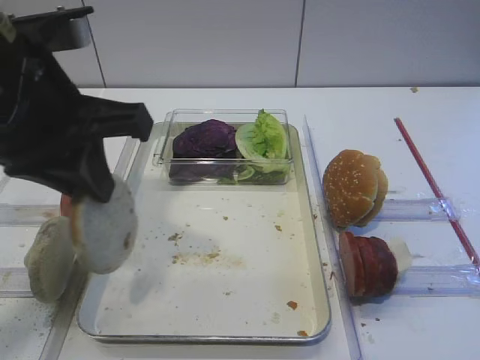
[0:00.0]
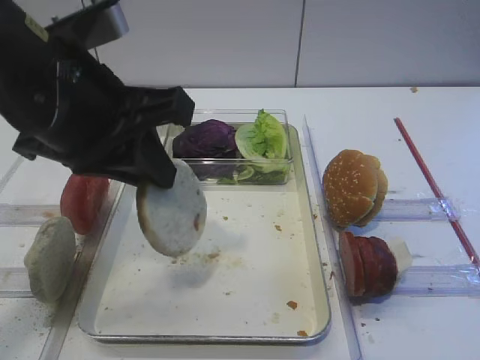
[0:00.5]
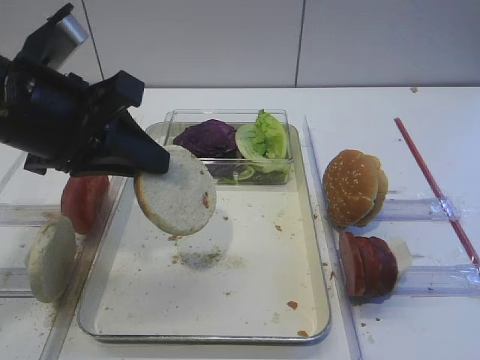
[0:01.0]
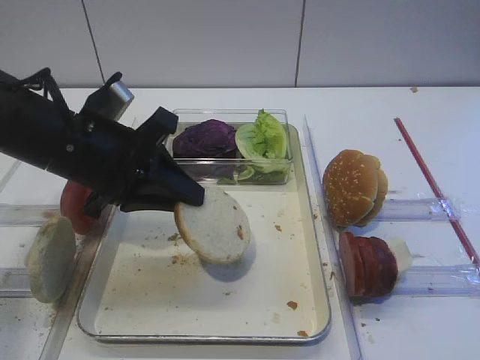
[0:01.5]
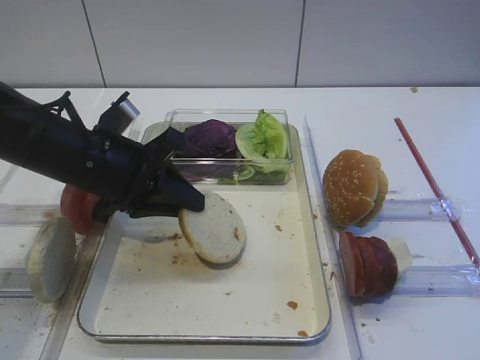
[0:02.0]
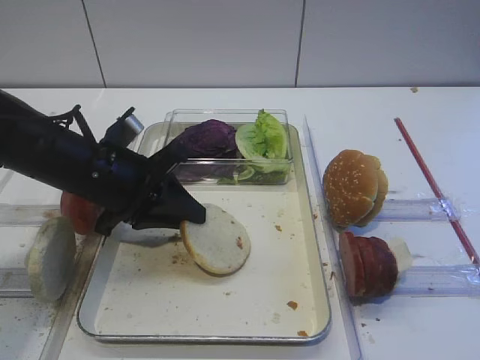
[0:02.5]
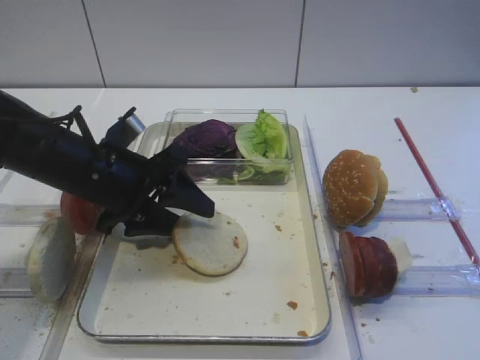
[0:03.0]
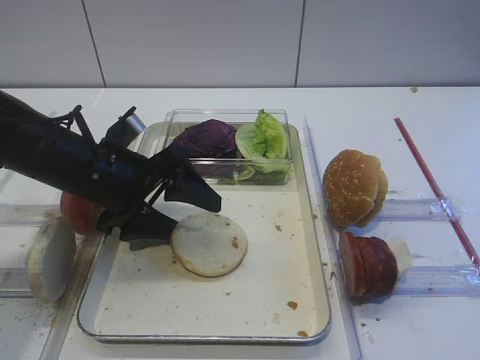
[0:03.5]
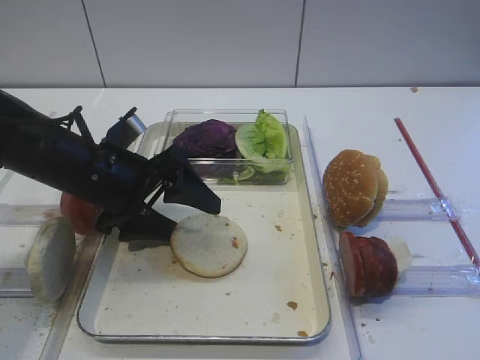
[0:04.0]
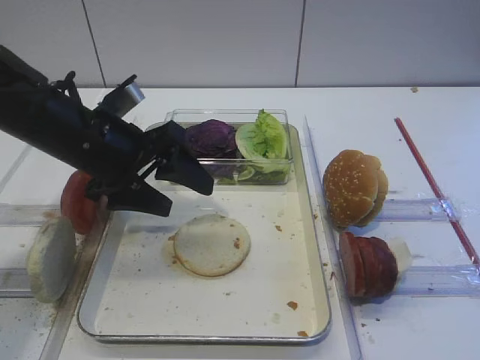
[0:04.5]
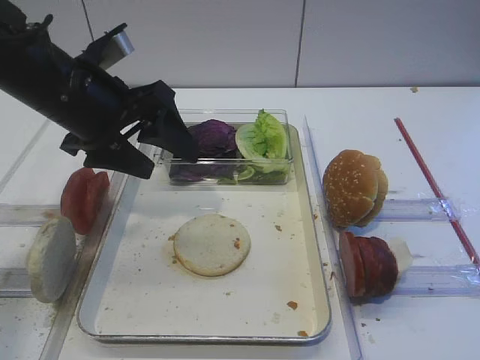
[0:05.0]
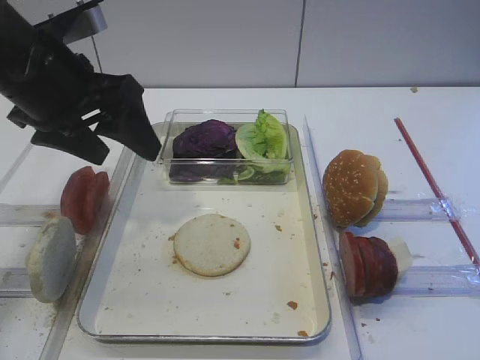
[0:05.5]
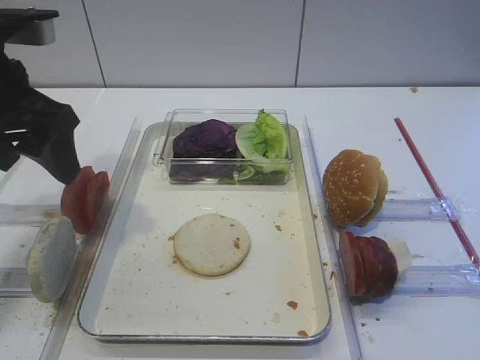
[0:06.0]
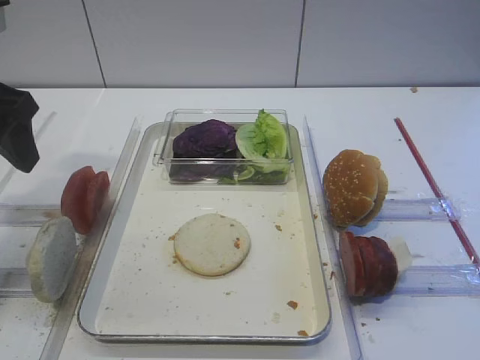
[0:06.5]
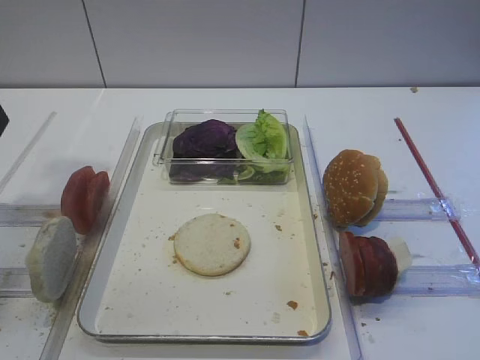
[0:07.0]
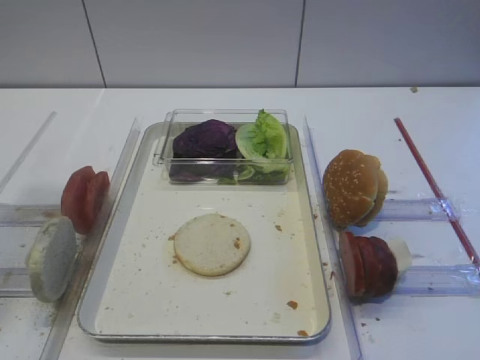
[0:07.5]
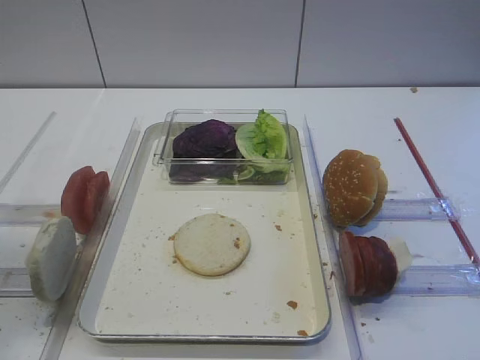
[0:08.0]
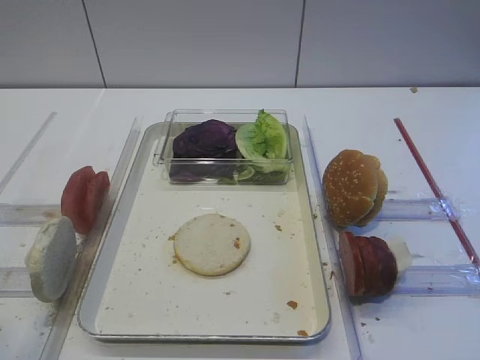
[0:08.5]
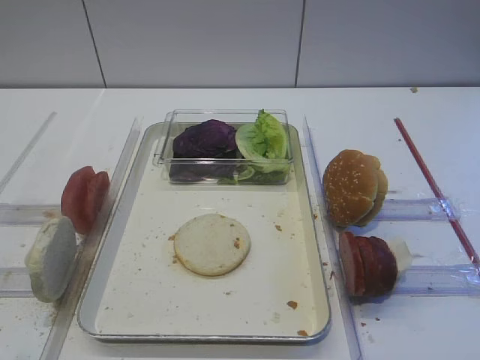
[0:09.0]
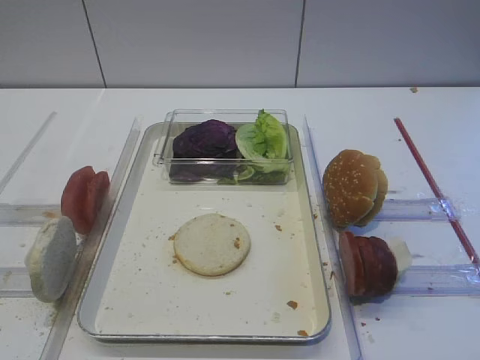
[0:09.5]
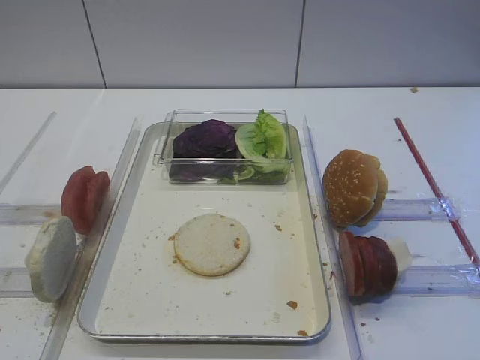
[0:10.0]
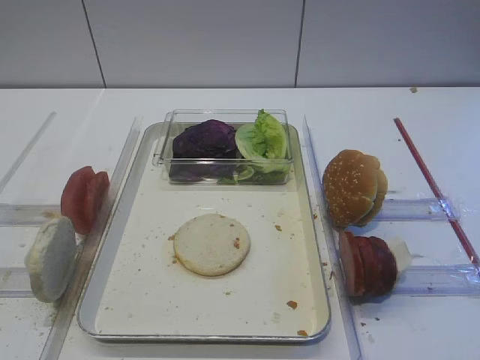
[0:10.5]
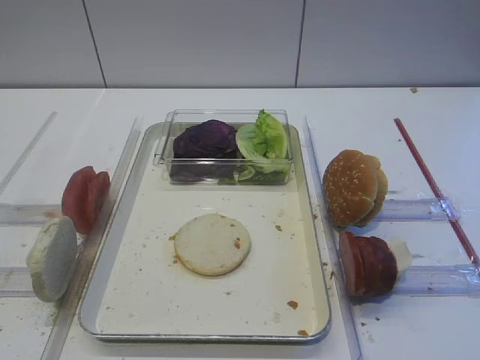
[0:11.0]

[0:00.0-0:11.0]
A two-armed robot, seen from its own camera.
Step, 0:00.0 to 0:05.0: Place the bread slice on the tray with the left gripper.
0:00.0 to 0:02.0: The left gripper moves downward and forward, about 15 cm.
0:02.0 to 0:03.5: The left gripper opens up.
0:03.5 to 0:05.5: The left gripper heads upward, covering some 10 cm.
0:05.5 to 0:07.5: The left gripper shifts about 20 cm backward, upward and to the left.
0:07.5 to 0:09.0: The left gripper is displaced backward by approximately 20 cm.

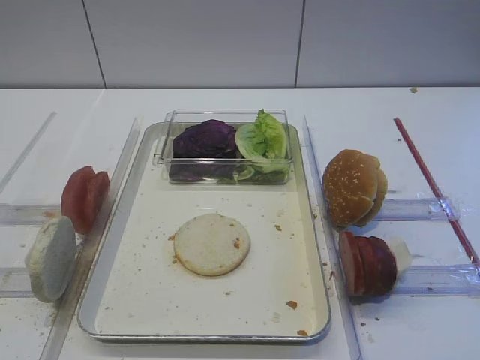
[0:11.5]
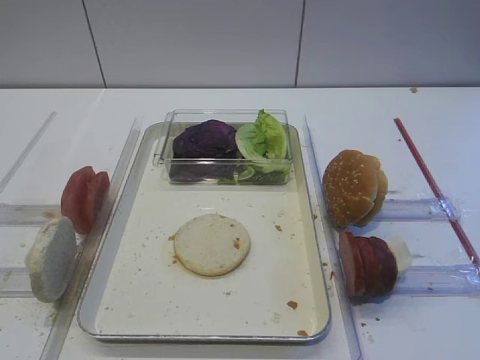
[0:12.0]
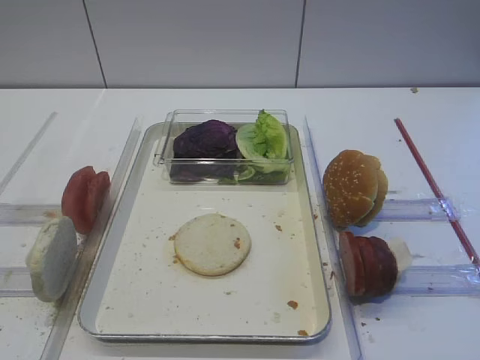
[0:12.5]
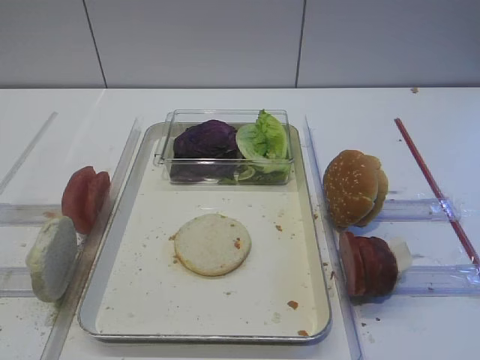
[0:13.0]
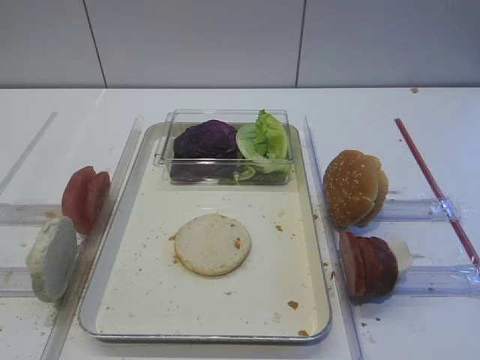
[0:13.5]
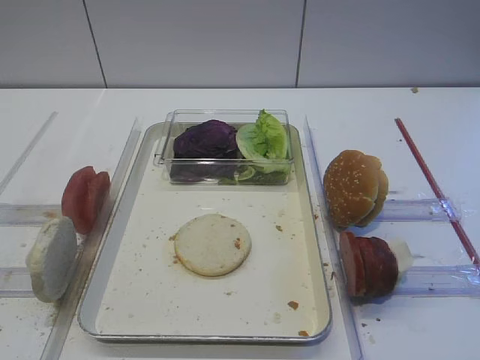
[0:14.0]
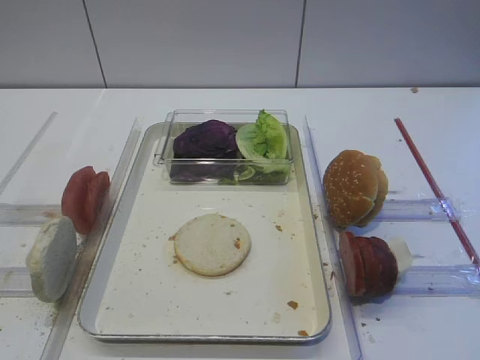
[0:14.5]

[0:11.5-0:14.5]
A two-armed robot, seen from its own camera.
0:11.5 to 0:14.5: Both grippers stay put.

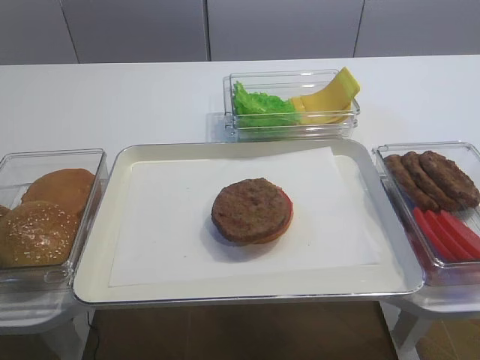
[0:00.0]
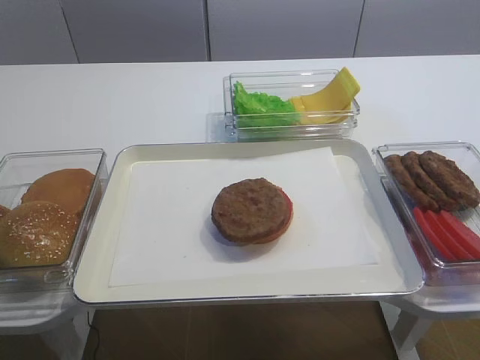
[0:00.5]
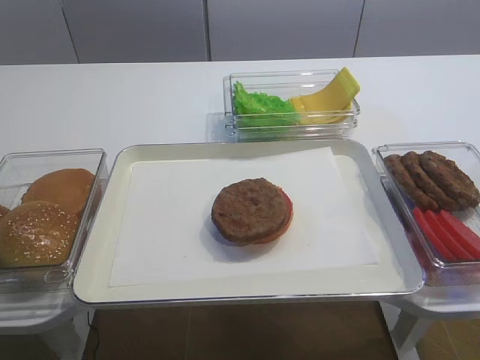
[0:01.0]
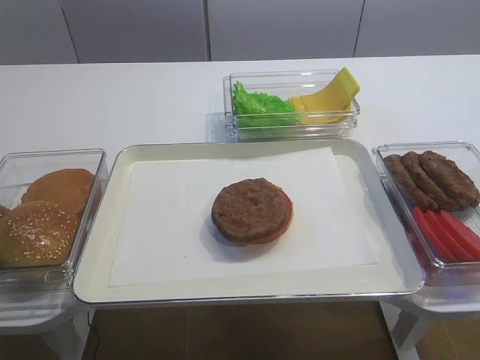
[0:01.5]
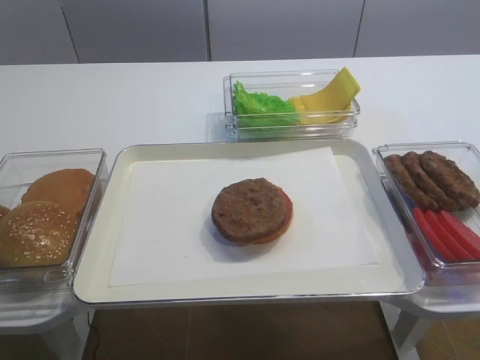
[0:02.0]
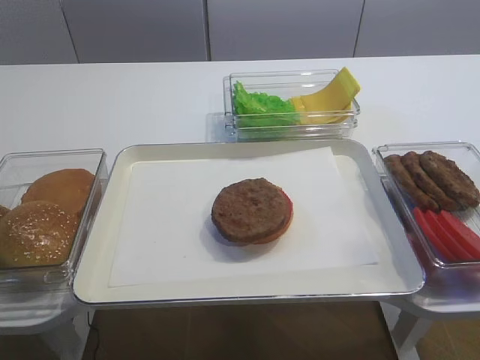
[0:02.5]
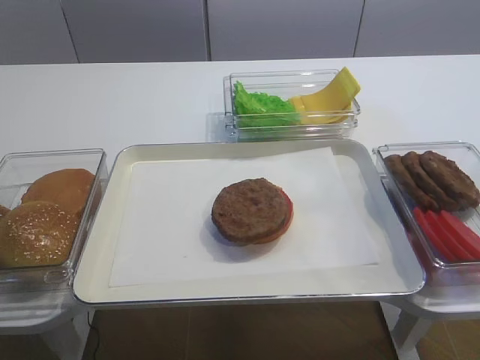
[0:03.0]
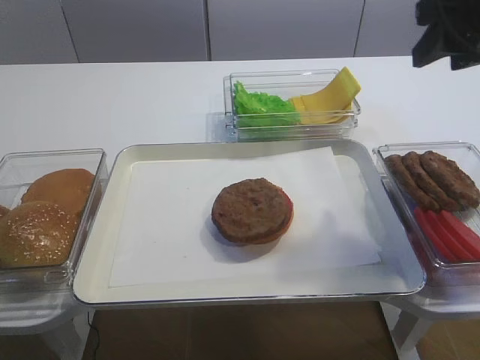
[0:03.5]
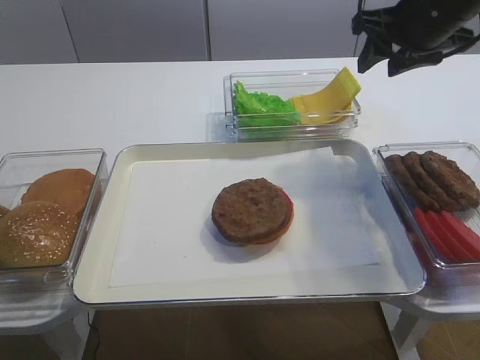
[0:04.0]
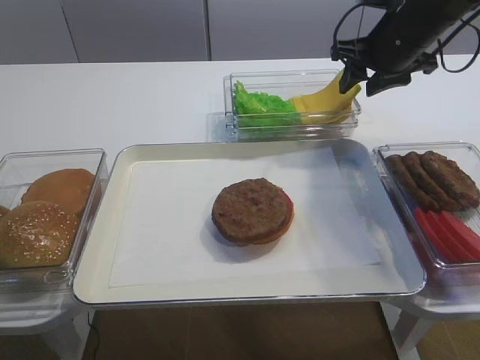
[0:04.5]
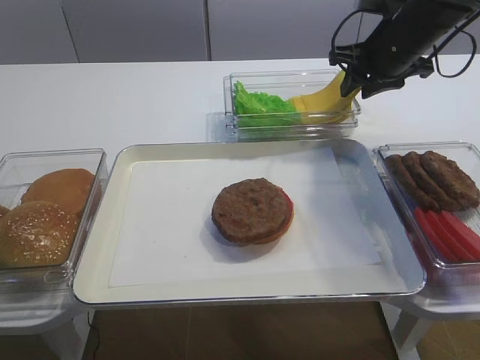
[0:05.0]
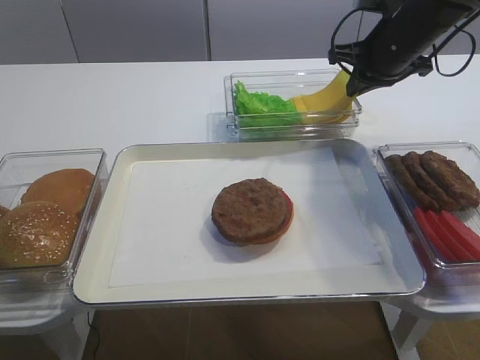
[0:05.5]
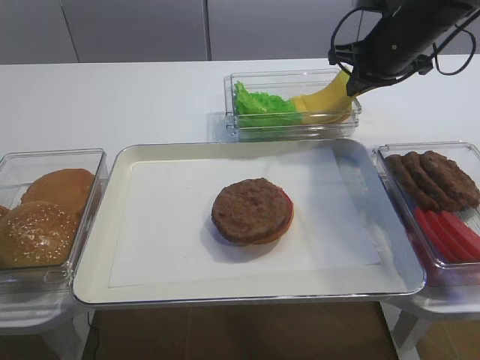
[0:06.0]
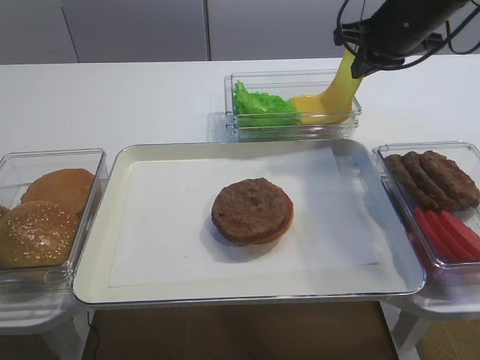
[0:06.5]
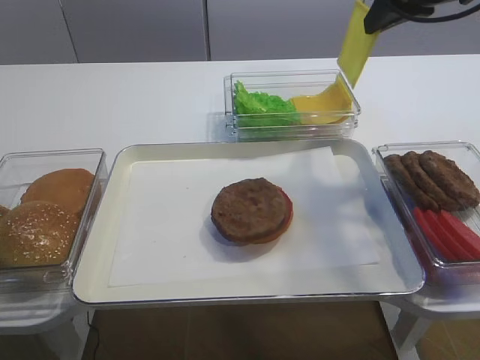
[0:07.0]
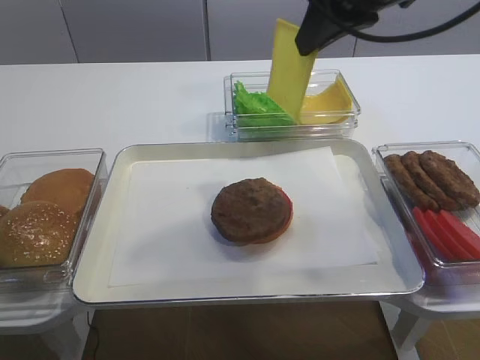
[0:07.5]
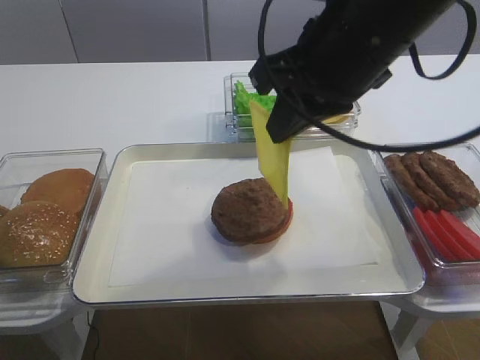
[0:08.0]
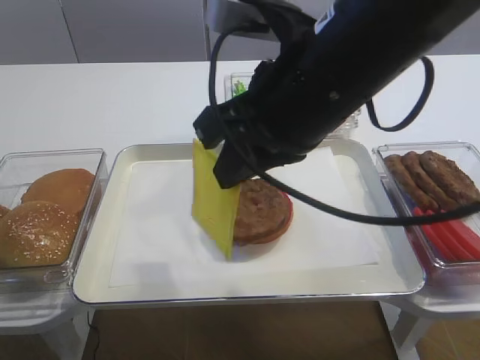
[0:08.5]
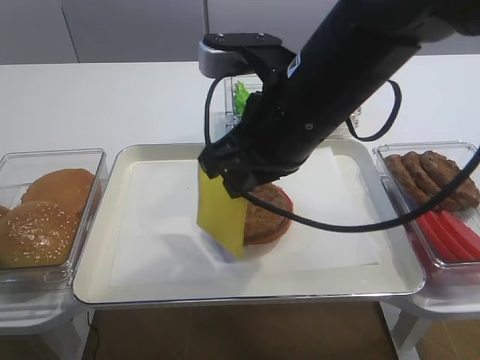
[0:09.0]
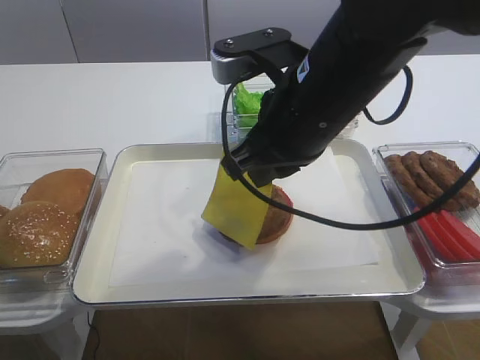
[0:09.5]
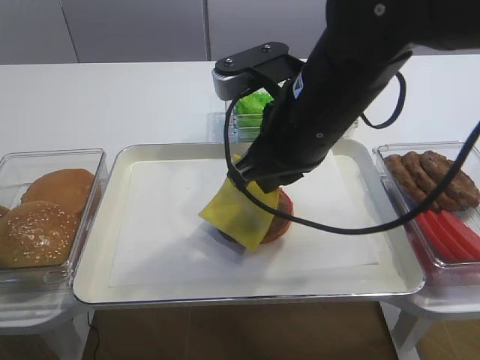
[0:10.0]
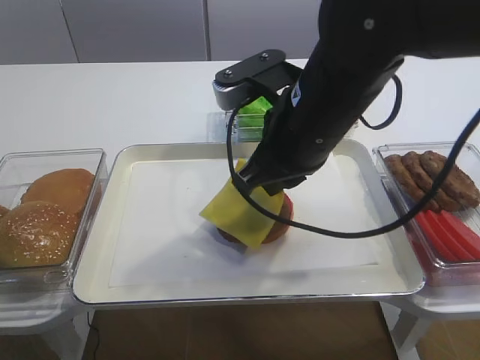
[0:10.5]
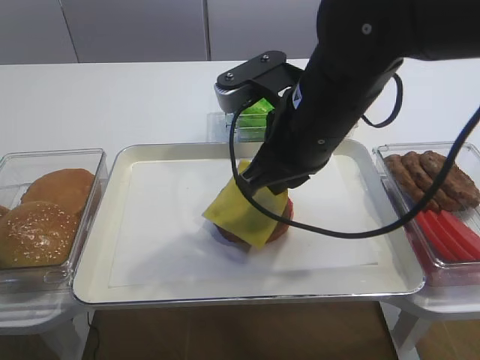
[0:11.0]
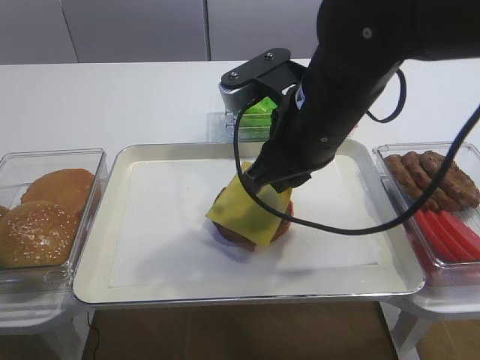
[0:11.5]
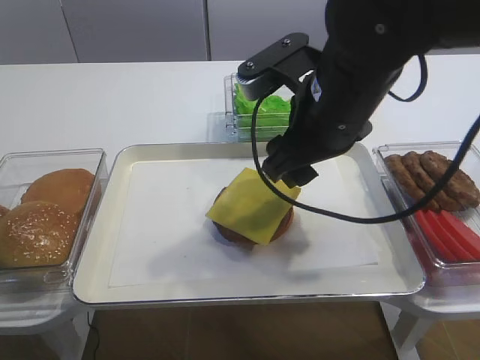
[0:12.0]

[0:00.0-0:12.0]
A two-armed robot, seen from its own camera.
Step, 0:00.0 to 0:06.5: Pick up the cheese slice with the right gripper.
0:02.0 to 0:04.0: The right gripper is displaced forward by roughly 40 cm.
0:04.0 to 0:06.0: The right gripper shifts by about 5 cm, and closes up.
0:06.0 to 0:08.0: The right gripper shifts roughly 25 cm backward, to the left and upward.
0:08.0 to 0:10.0: The right gripper moves downward, approximately 5 cm.
0:10.0 to 0:12.0: The right gripper opens.
